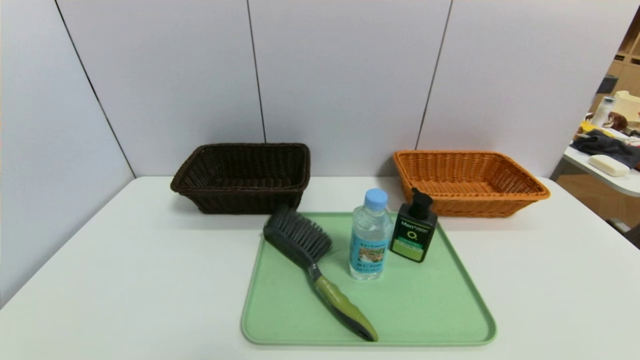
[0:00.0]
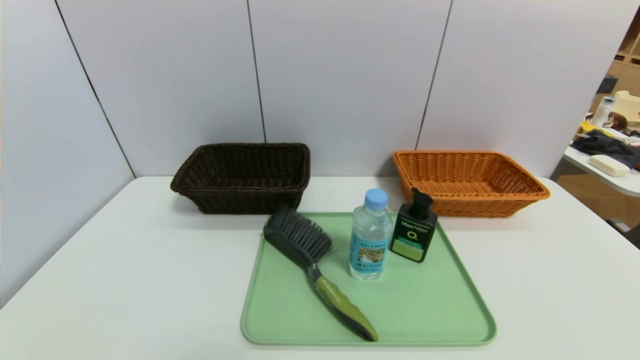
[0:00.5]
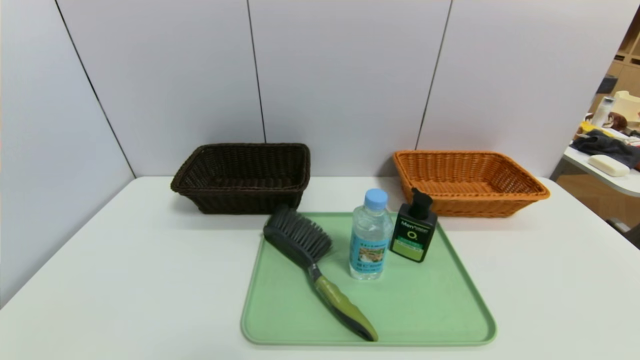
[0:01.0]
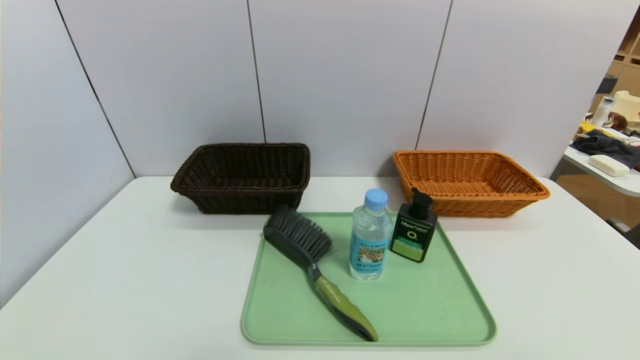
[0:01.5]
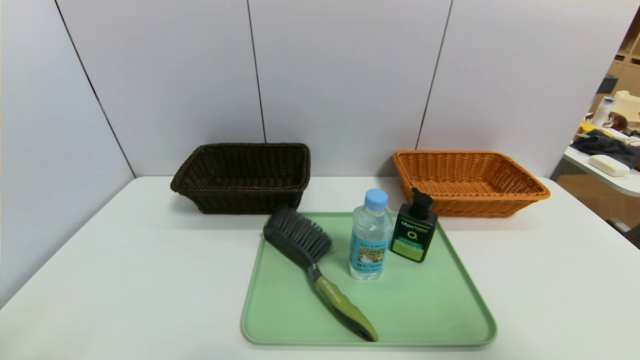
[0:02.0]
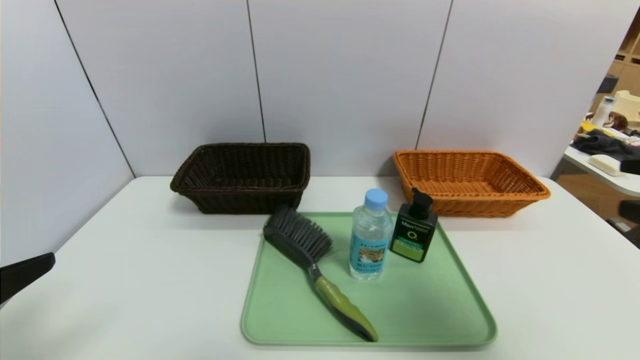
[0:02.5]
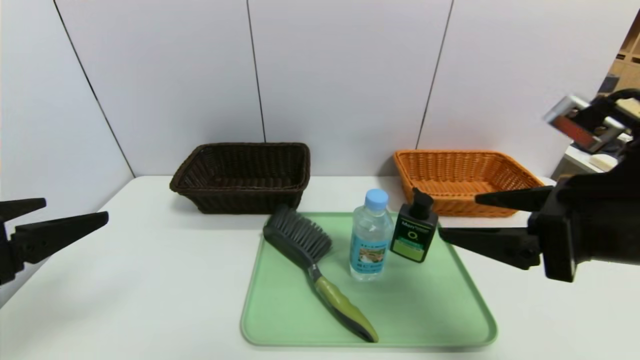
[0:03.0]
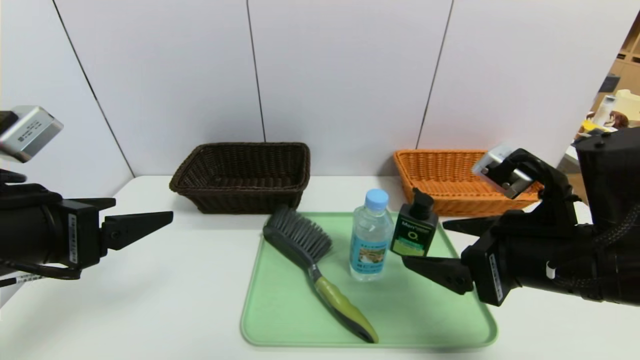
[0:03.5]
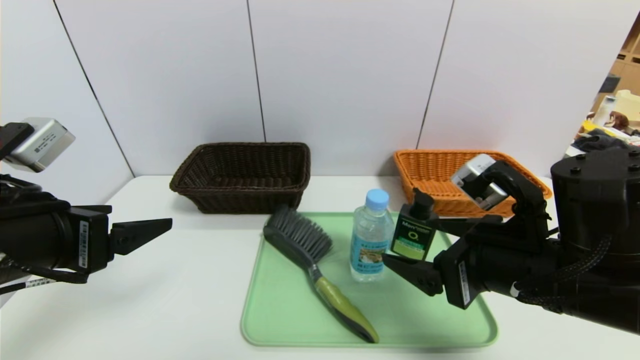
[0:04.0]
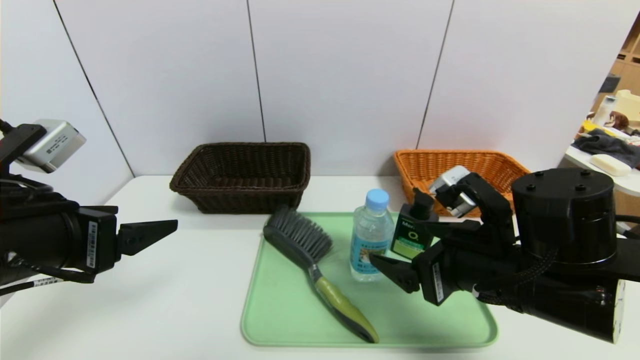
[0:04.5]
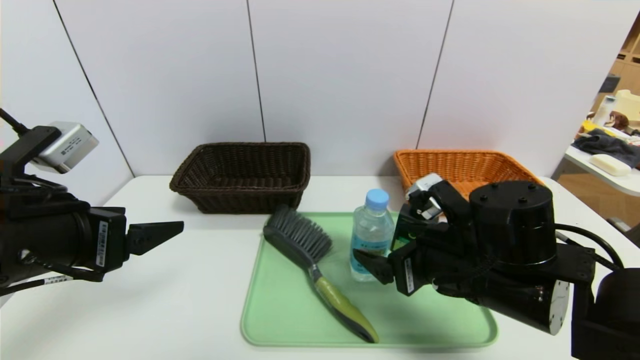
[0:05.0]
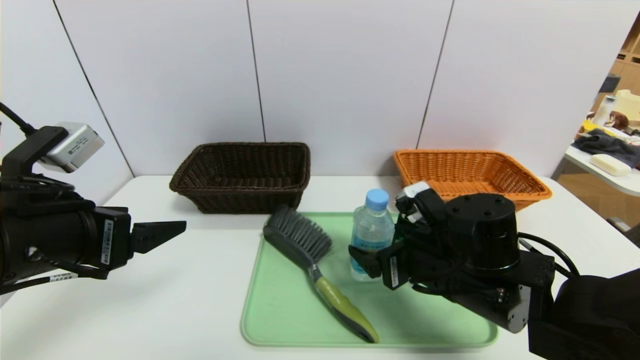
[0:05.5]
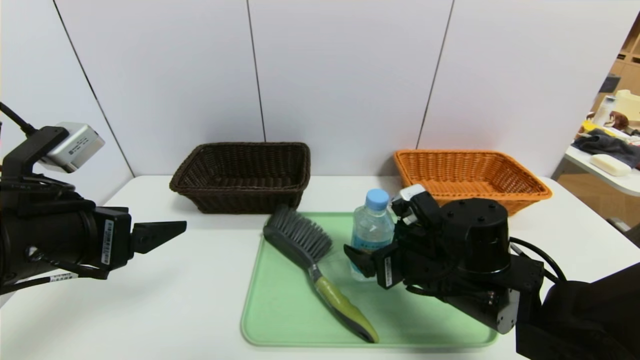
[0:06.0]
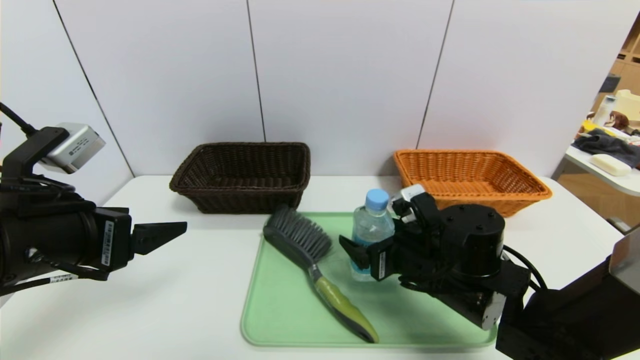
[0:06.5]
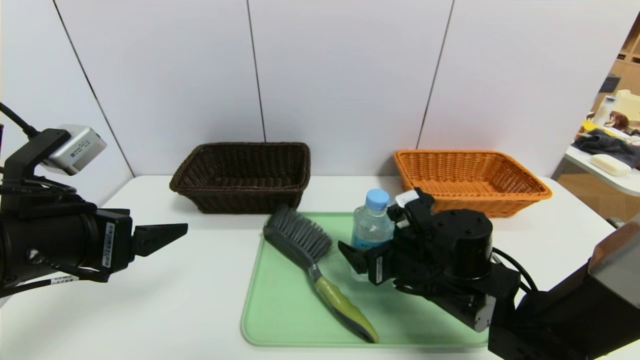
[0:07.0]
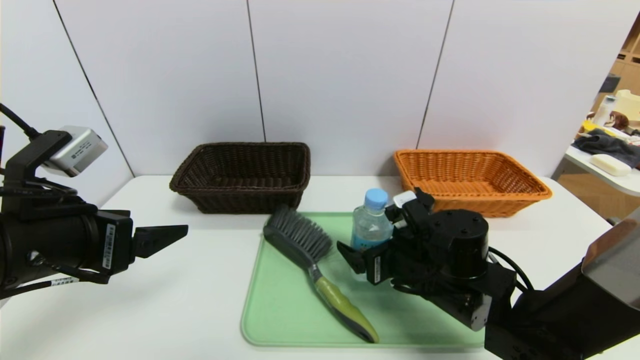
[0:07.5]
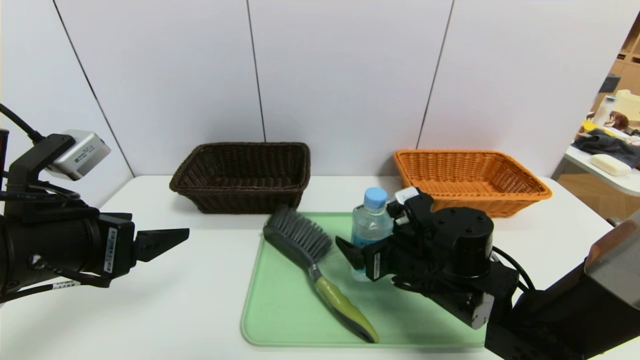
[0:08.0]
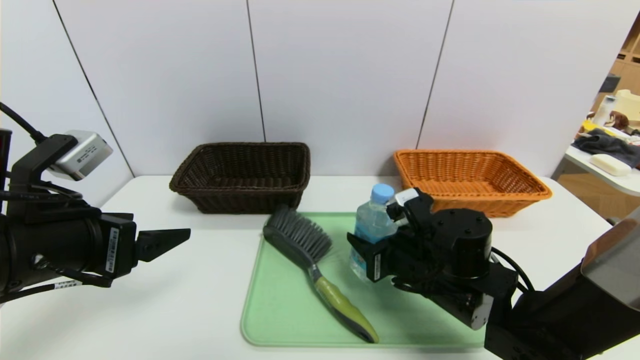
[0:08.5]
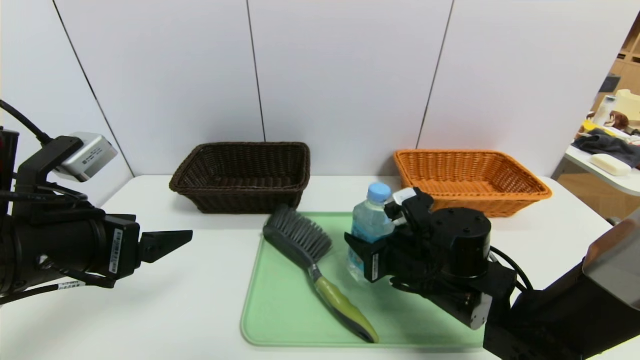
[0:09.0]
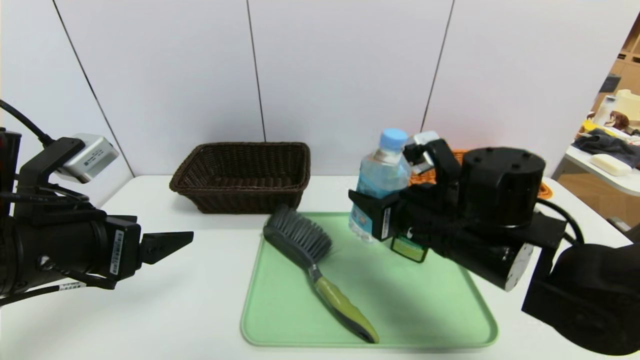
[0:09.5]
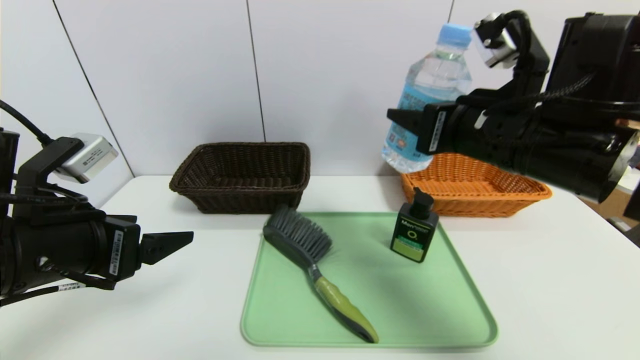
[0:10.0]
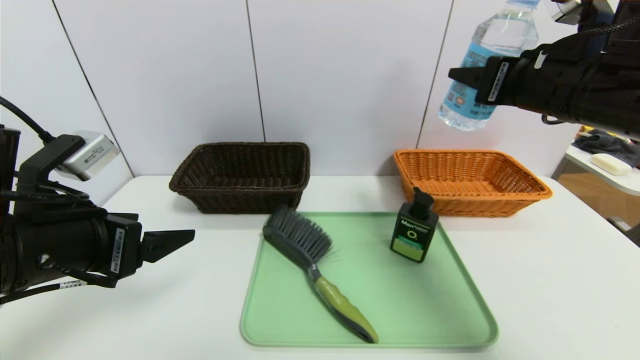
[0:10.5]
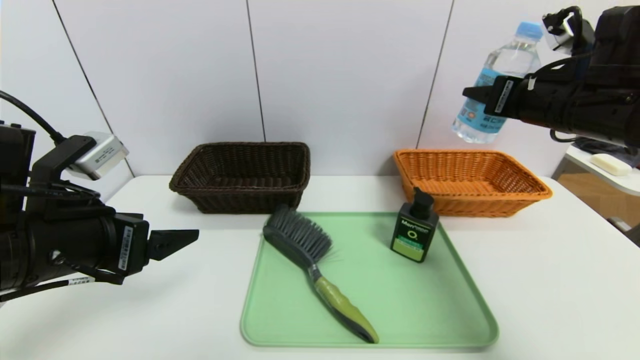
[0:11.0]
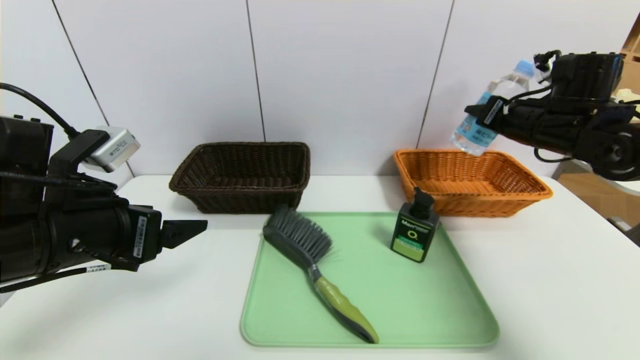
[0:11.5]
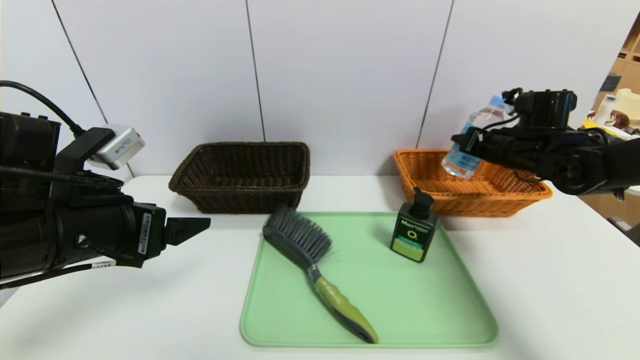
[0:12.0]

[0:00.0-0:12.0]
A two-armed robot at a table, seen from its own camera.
Task of the whole recording: place the food in the right basket with the right gripper, and place the non food items in the left basket with the left gripper.
0:00.0 to 0:02.0: The right gripper goes some 25 cm upward.
0:02.0 to 0:04.0: The left gripper shifts roughly 15 cm forward. The right gripper heads forward, to the left and downward, covering some 25 cm.
0:04.0 to 0:06.0: The right gripper goes approximately 10 cm downward and forward.
0:06.0 to 0:08.0: The grippers move only a little.
0:08.0 to 0:10.0: The right gripper travels upward by some 20 cm, and closes up.
0:10.0 to 0:12.0: The right gripper is displaced forward, to the right and downward by some 25 cm.

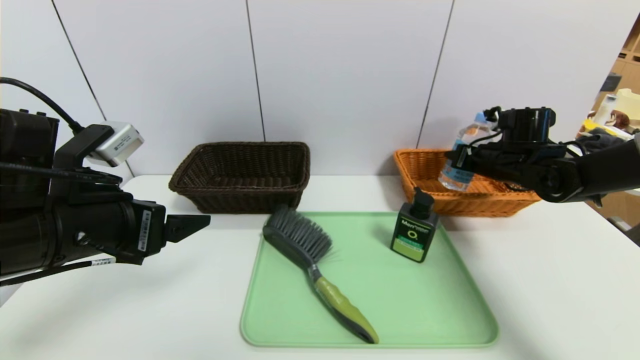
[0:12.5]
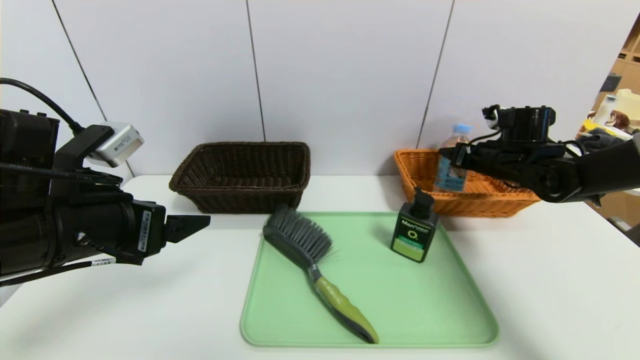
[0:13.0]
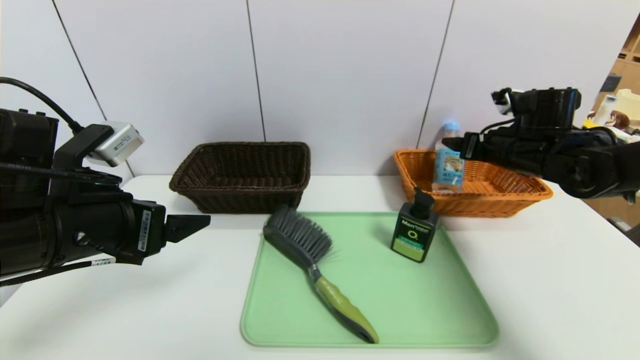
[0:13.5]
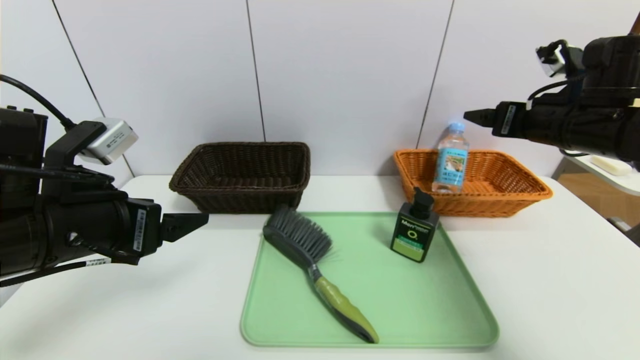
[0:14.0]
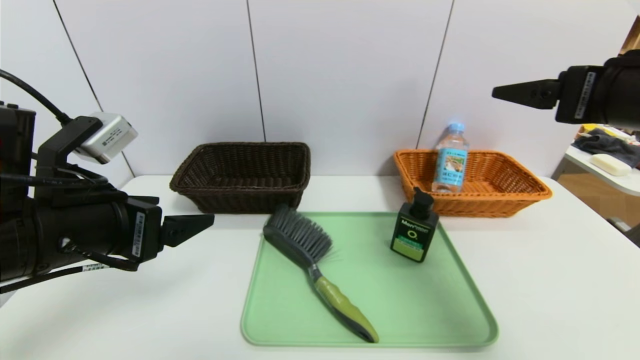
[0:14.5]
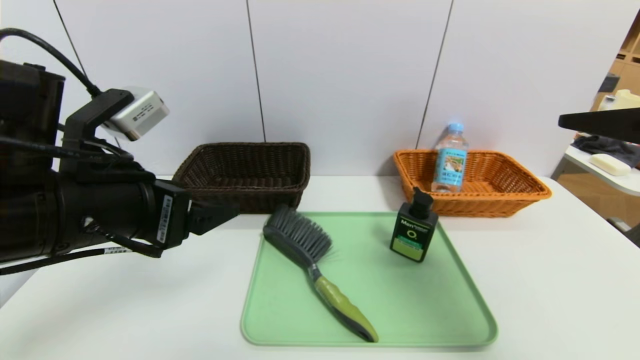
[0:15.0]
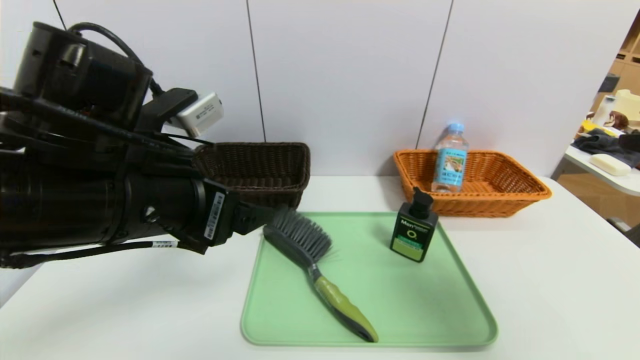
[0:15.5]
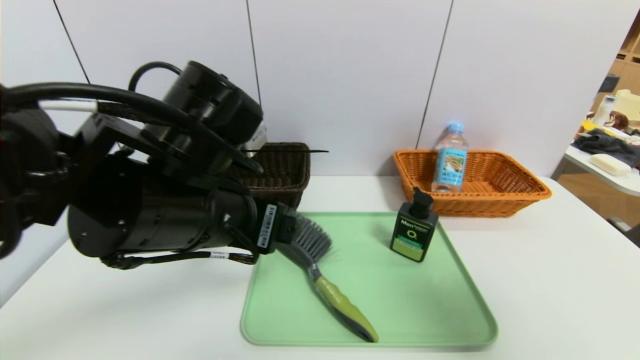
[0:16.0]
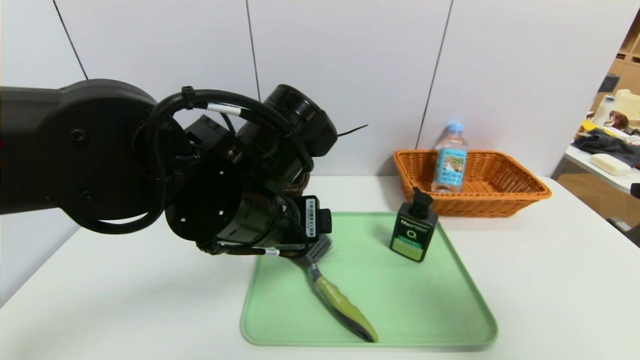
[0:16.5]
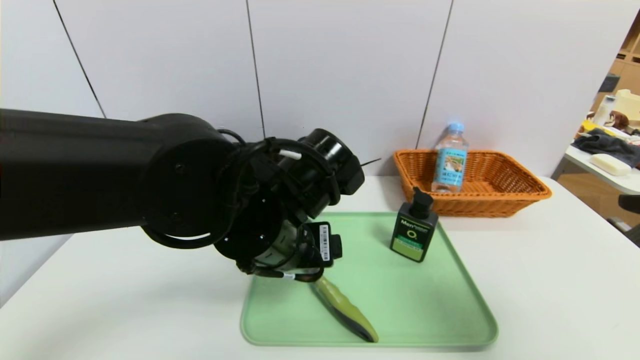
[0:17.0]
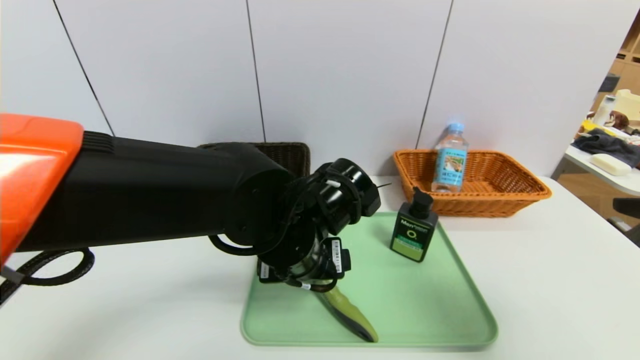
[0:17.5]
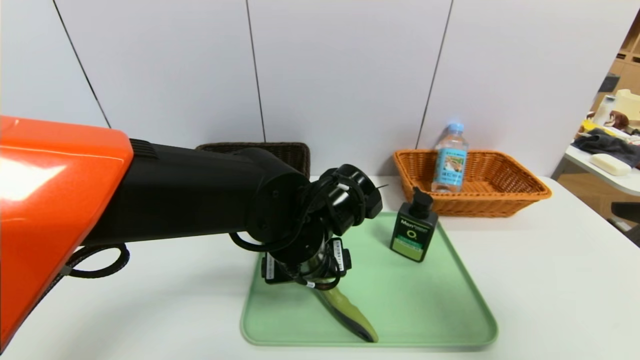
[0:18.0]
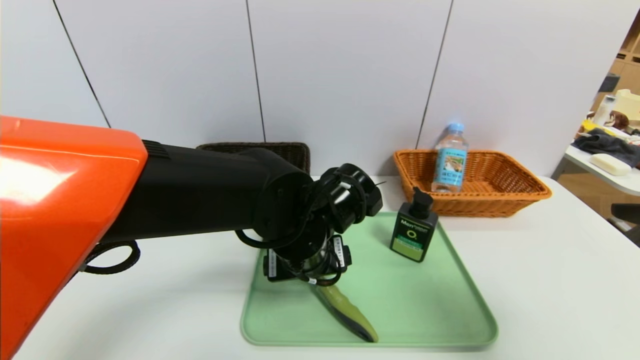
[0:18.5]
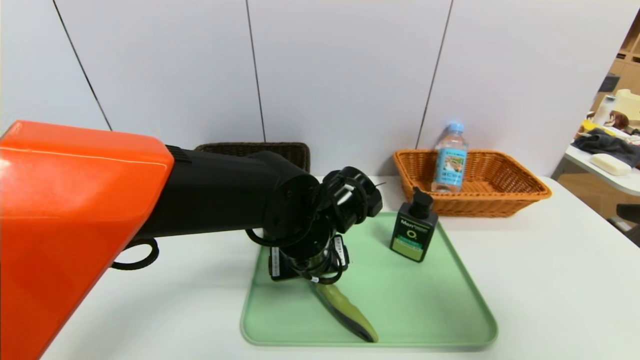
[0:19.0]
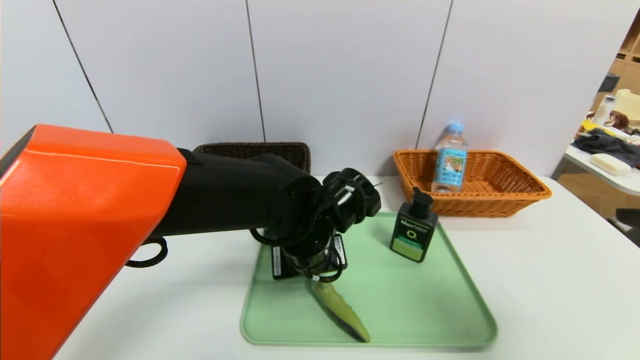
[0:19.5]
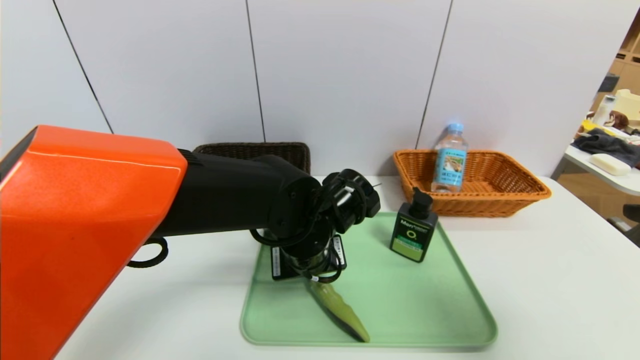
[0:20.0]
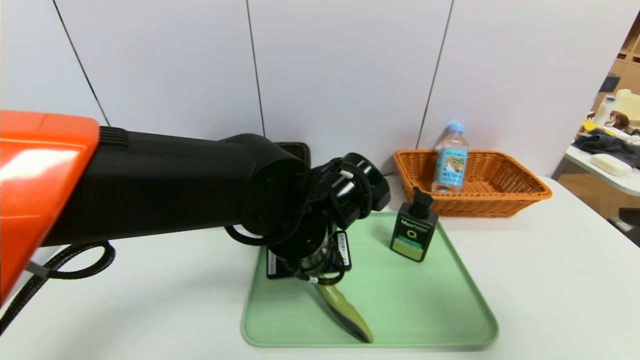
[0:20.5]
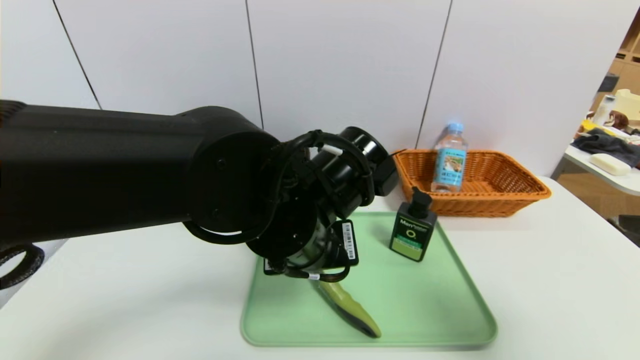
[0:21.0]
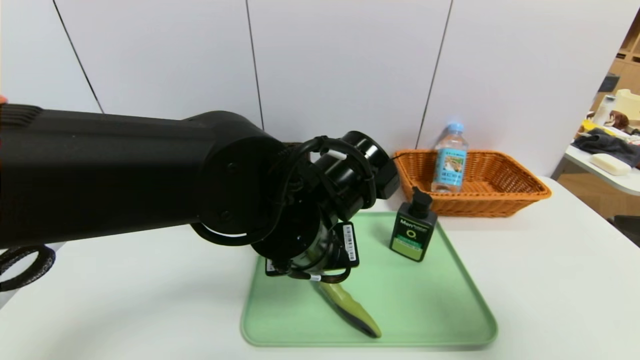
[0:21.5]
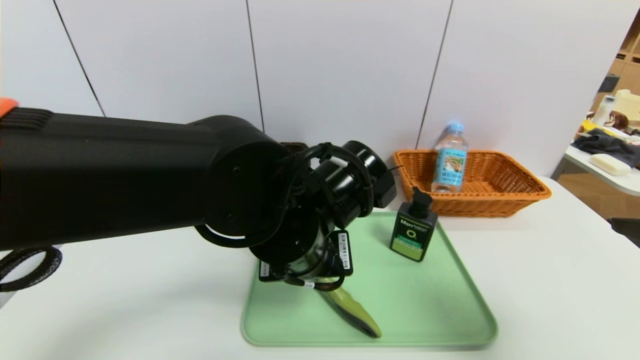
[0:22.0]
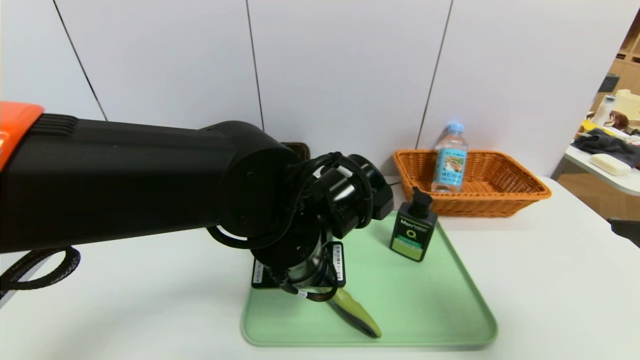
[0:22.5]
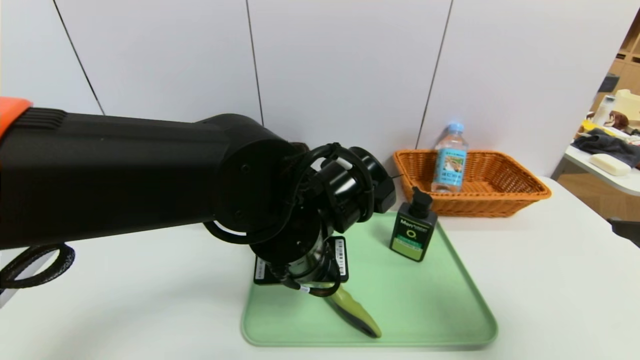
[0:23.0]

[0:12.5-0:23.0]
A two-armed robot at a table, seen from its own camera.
Task of the whole recording: place the food in the right basket with the right gripper, and place the non food items in the left basket with the left gripper.
0:12.5 to 0:14.5: The right gripper travels backward and upward by about 25 cm, and opens up.
0:14.5 to 0:16.5: The right gripper is displaced backward by roughly 10 cm, while the left gripper goes about 15 cm to the right.
0:16.5 to 0:19.0: The left gripper is displaced downward and to the right by about 10 cm.
0:19.0 to 0:21.0: The left gripper moves upward, some 5 cm, and closes up.
0:21.0 to 0:23.0: The grippers make only small movements.
